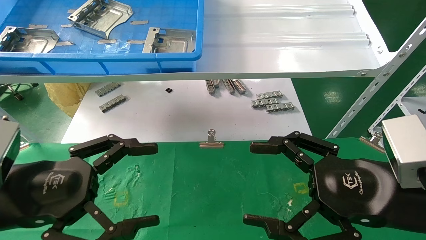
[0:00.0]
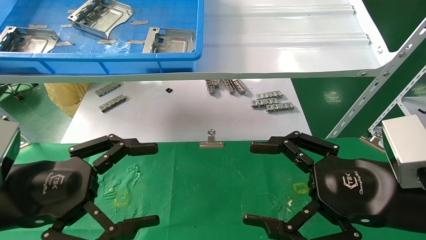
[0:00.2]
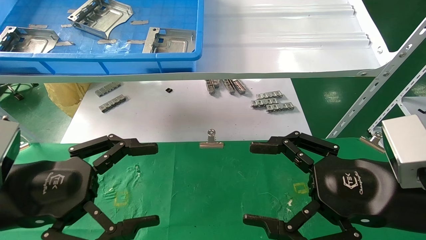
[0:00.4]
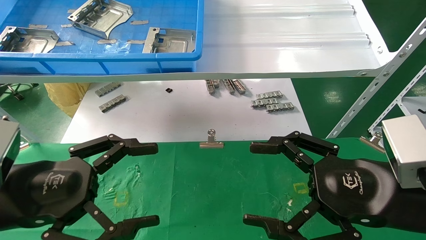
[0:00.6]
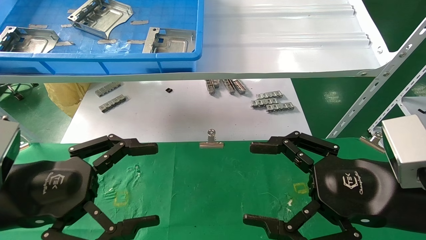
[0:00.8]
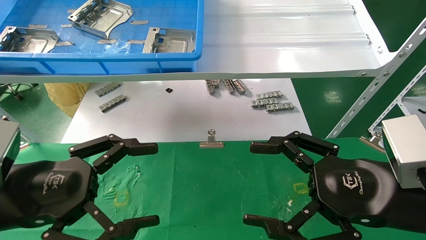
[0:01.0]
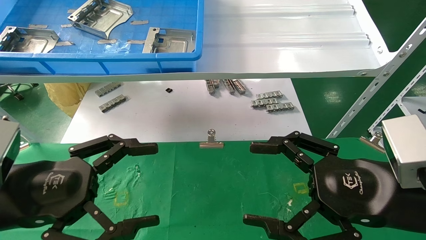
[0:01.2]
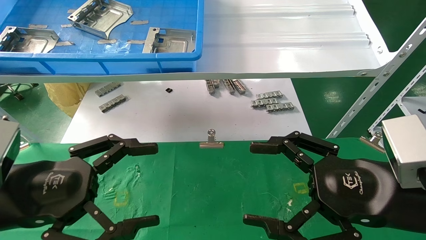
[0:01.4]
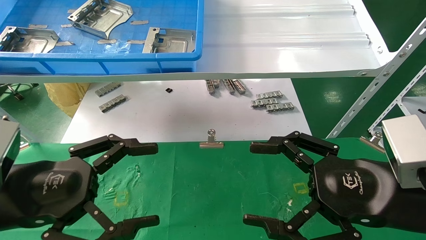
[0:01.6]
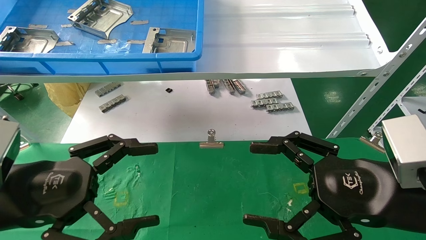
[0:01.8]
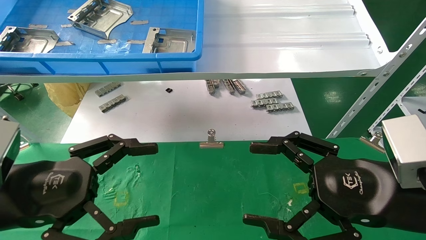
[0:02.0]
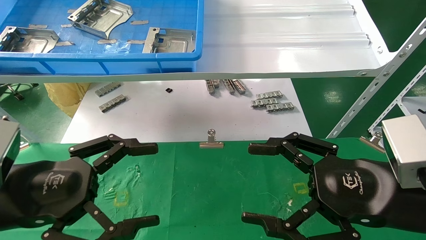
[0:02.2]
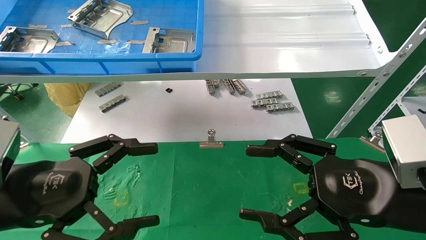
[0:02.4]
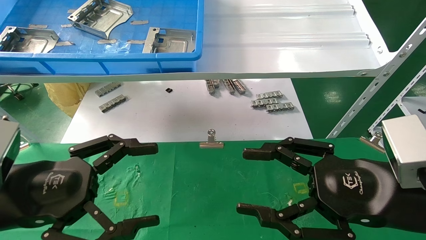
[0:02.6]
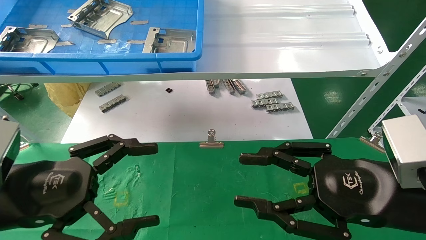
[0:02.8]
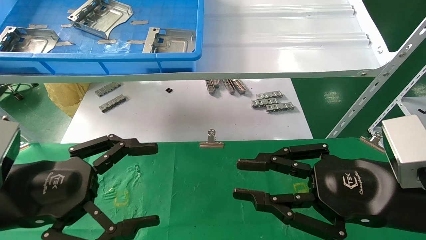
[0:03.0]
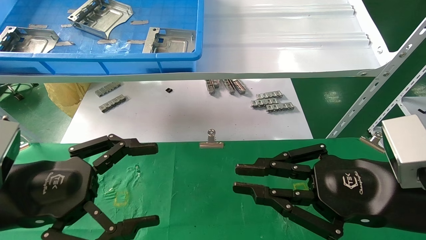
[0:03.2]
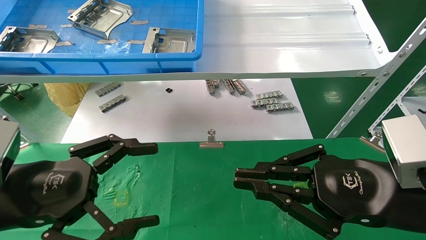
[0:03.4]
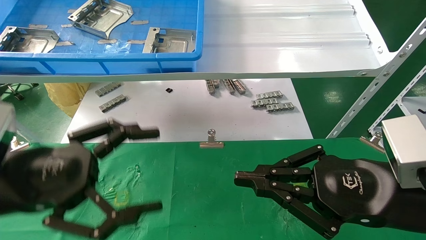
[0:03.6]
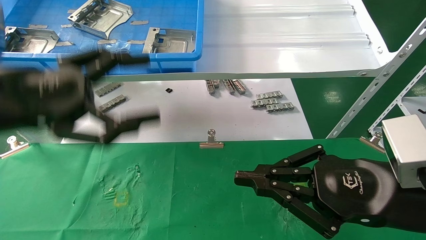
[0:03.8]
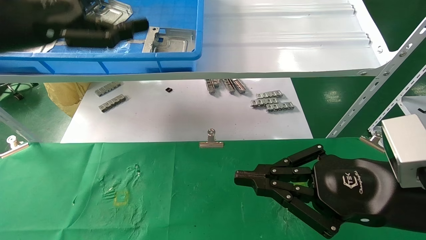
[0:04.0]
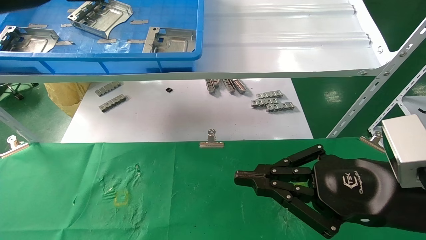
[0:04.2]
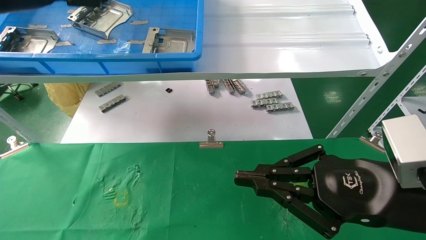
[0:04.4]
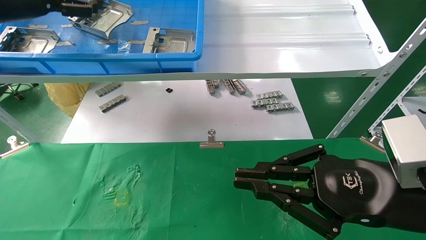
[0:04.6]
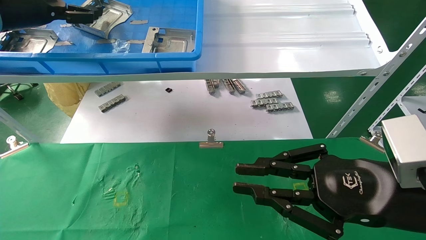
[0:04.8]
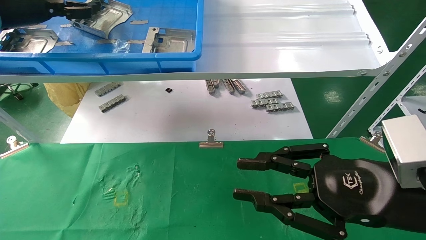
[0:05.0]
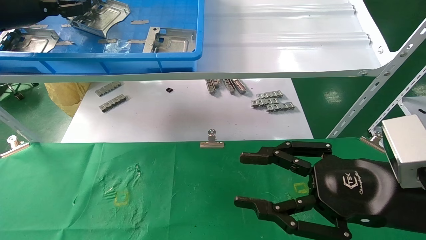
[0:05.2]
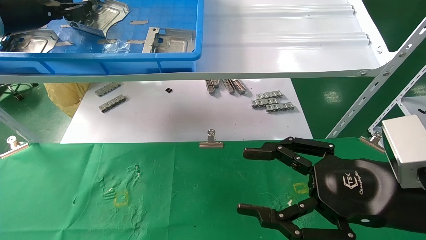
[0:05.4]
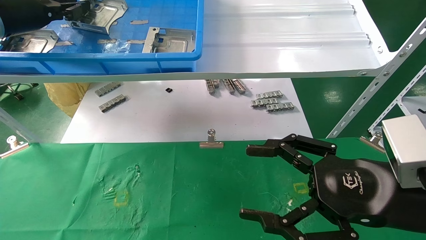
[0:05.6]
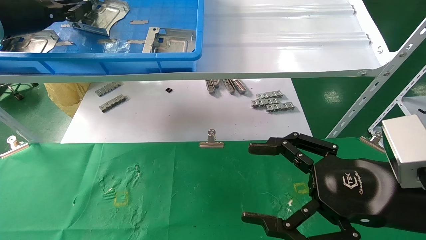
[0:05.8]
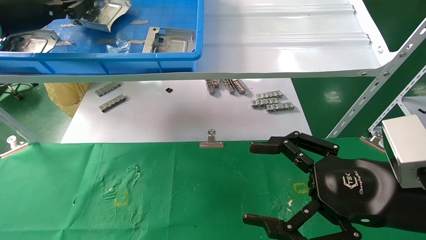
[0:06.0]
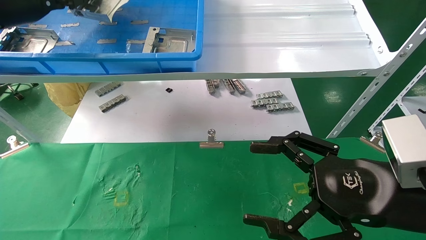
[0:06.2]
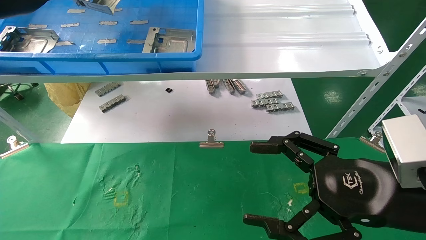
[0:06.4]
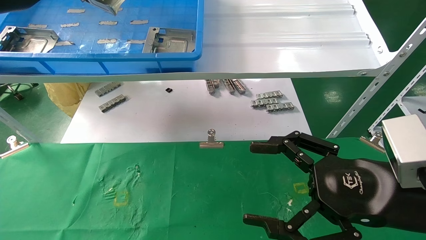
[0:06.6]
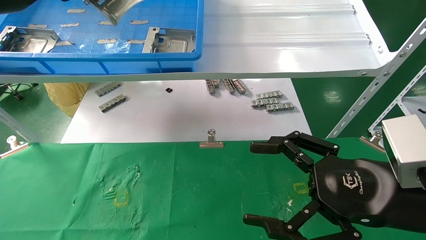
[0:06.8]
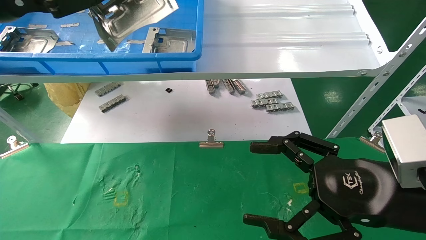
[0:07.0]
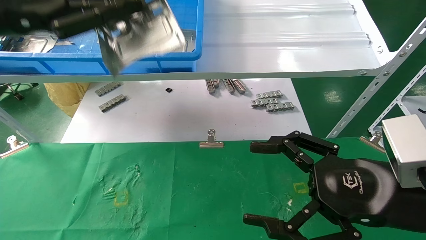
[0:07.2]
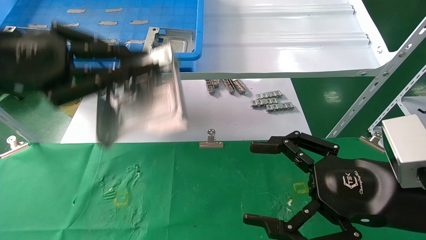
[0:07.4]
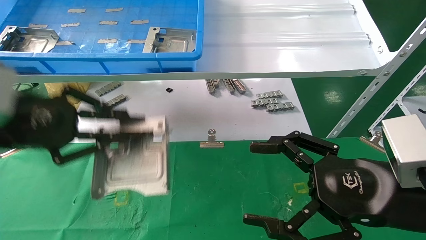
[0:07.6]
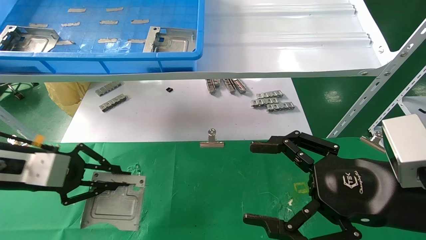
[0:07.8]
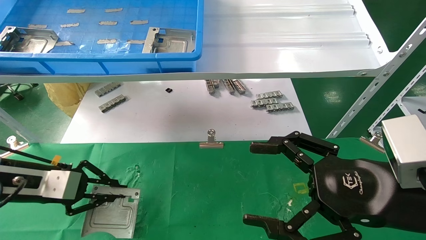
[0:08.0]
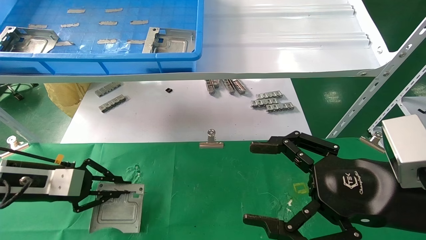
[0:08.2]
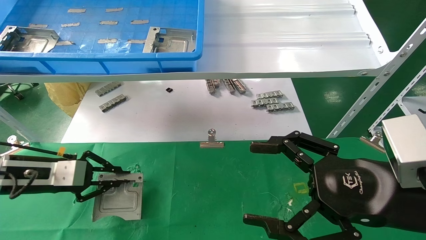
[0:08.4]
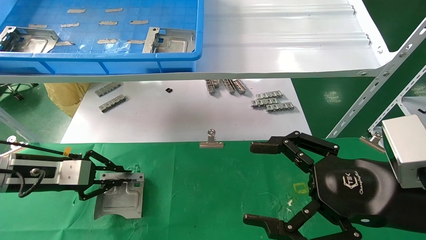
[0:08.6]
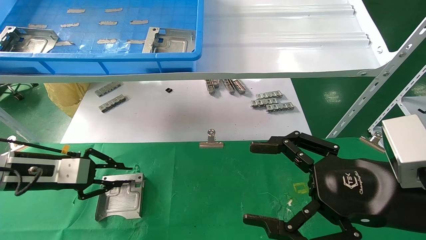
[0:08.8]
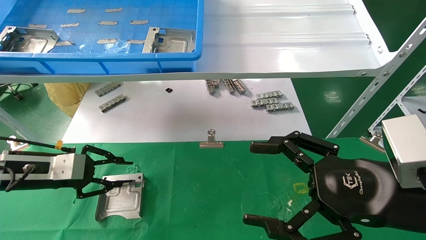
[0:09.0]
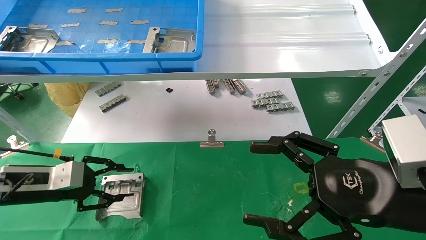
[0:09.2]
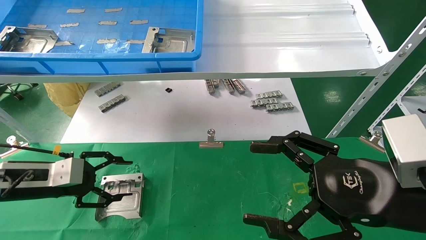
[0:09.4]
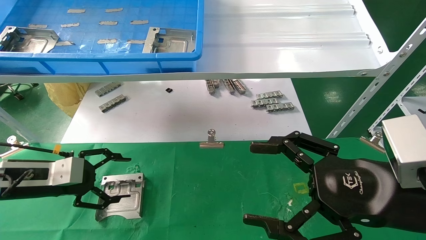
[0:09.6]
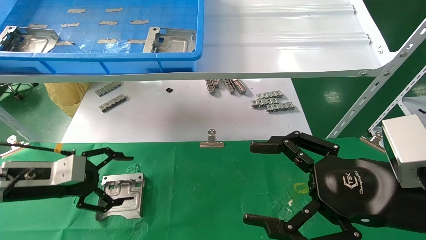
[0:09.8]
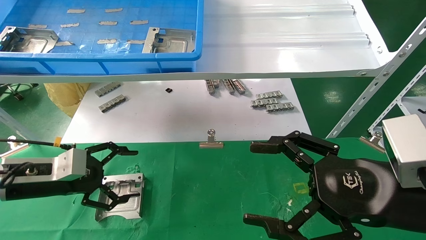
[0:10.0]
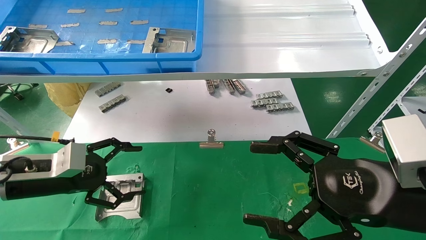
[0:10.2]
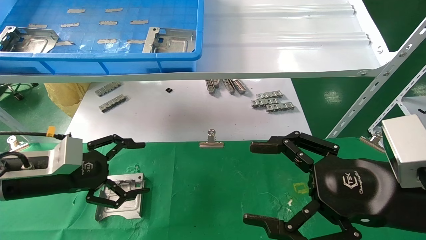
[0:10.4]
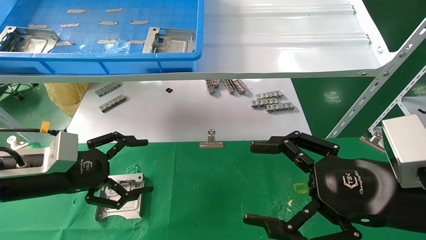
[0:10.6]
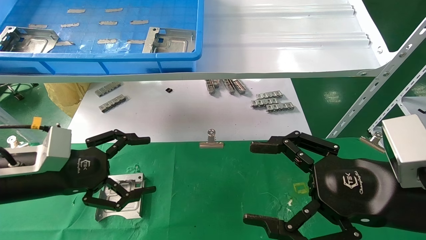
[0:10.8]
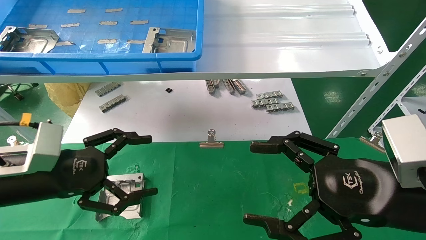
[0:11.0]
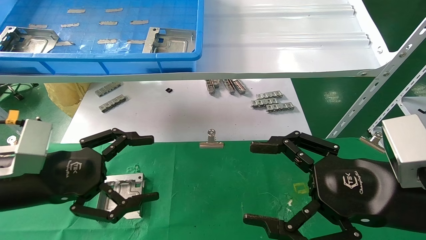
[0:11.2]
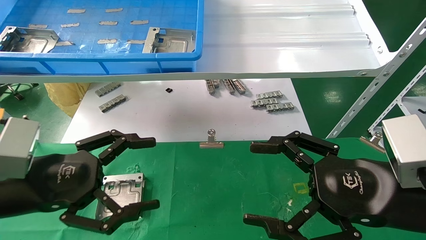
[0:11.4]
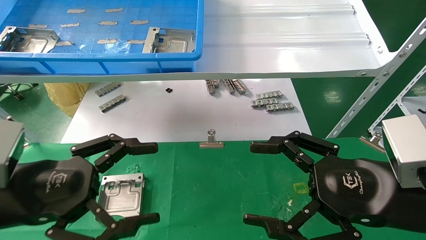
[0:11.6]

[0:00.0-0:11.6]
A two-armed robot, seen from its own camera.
Task of the whole recording: use the mechanical arm to pick up the parts and place them on the table.
Step, 0:03.8 to 0:05.8: Pick up the hard drive bracket from the feeding area.
Step, 0:06.0 to 0:08.8: Place the hard drive bracket into the box.
0:00.0 to 0:01.4: Both grippers stay about where they are.
0:01.4 to 0:02.8: The right gripper closes.
0:02.8 to 0:04.4: The left gripper heads upward and forward, covering some 30 cm. The right gripper closes up.
0:04.4 to 0:05.8: The left gripper shifts by about 5 cm, and closes its fingers. Meanwhile the right gripper opens.
0:05.8 to 0:07.2: The left gripper shifts some 15 cm backward.
0:07.2 to 0:08.8: The left gripper shifts about 25 cm downward.
0:08.8 to 0:10.2: The left gripper opens.
0:10.2 to 0:11.6: The left gripper shifts some 15 cm backward and to the right.

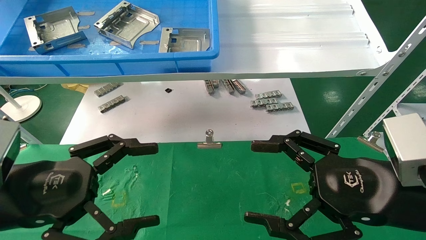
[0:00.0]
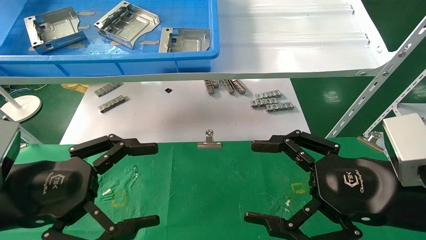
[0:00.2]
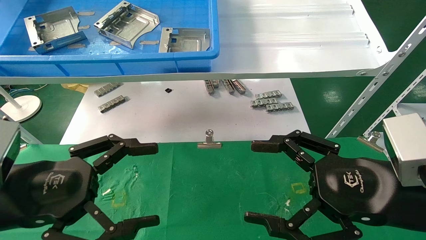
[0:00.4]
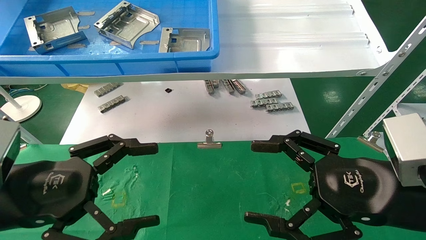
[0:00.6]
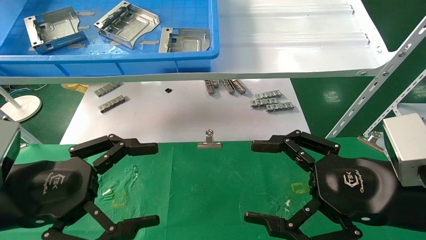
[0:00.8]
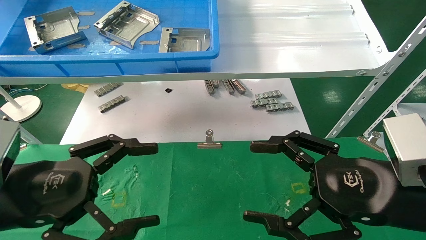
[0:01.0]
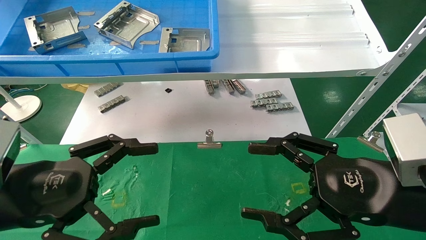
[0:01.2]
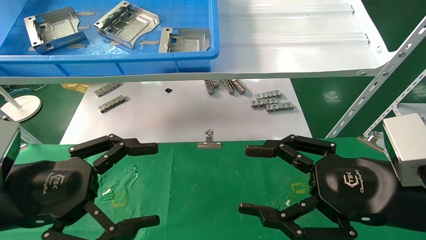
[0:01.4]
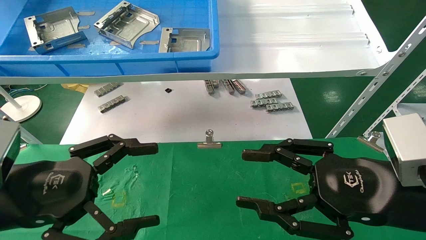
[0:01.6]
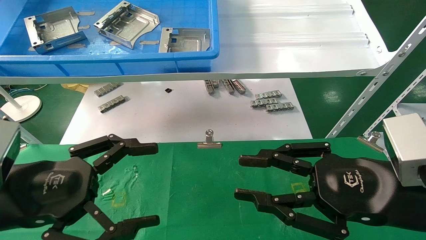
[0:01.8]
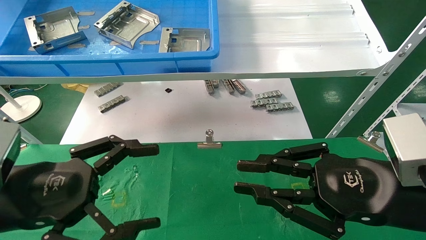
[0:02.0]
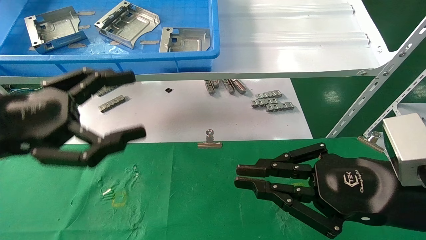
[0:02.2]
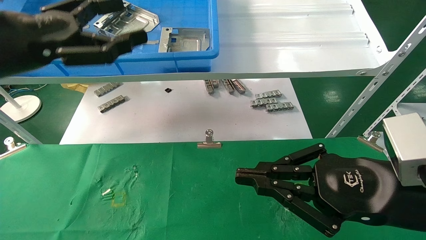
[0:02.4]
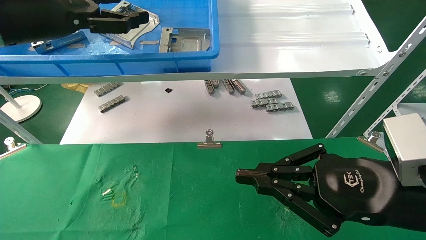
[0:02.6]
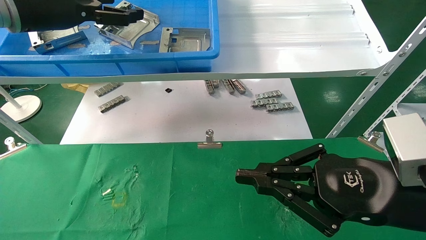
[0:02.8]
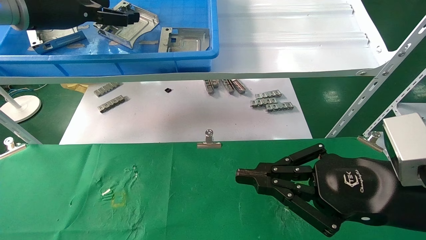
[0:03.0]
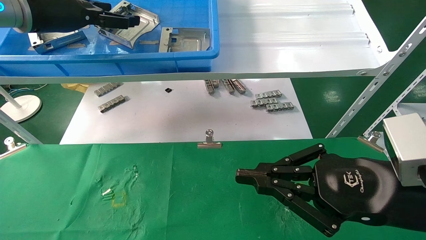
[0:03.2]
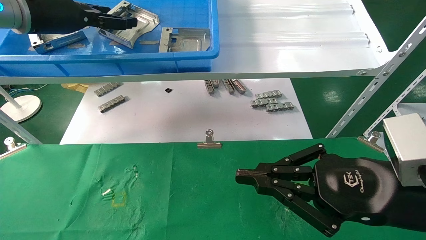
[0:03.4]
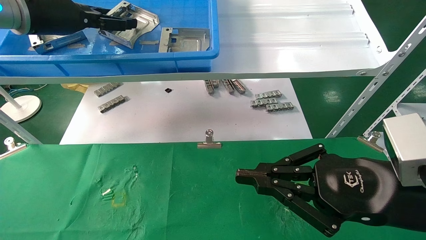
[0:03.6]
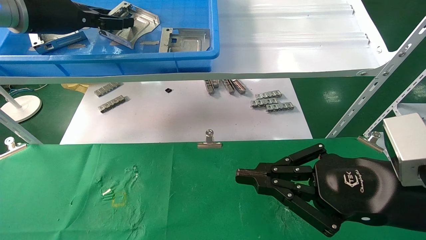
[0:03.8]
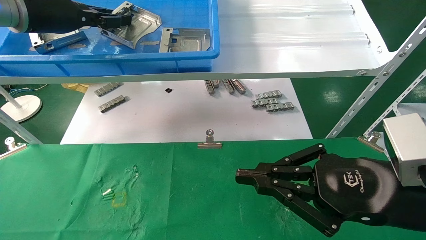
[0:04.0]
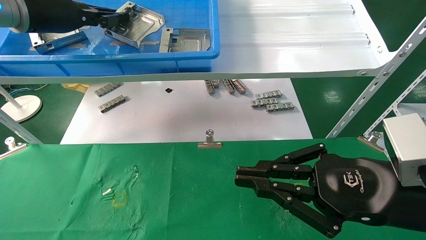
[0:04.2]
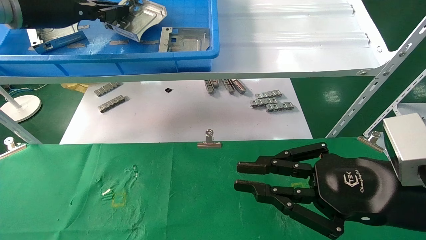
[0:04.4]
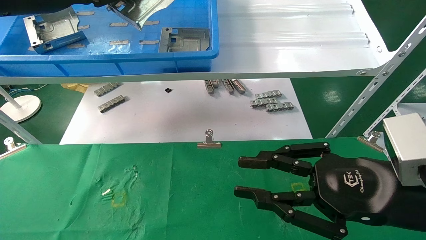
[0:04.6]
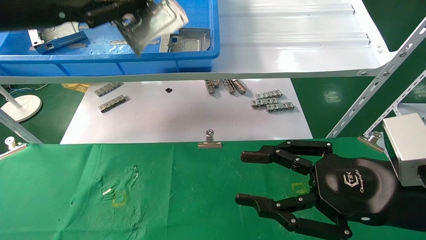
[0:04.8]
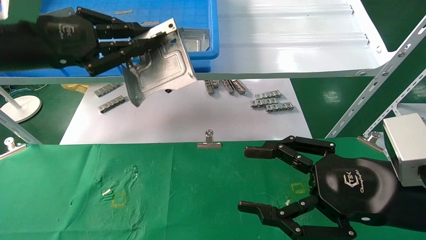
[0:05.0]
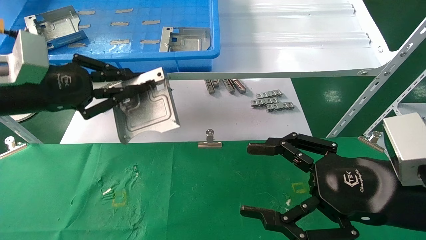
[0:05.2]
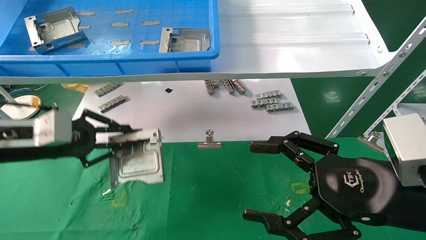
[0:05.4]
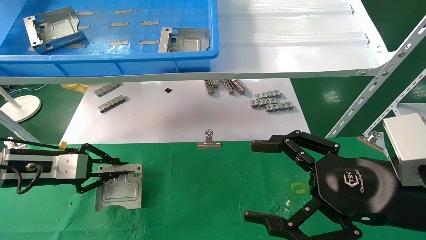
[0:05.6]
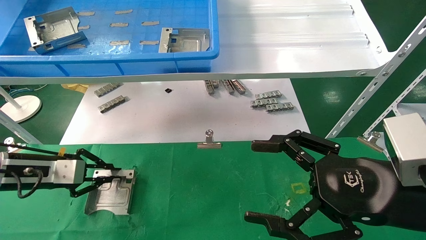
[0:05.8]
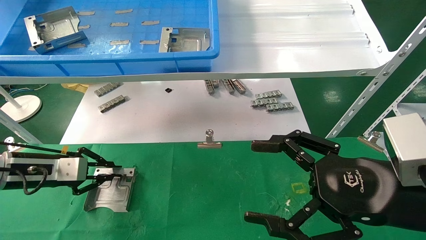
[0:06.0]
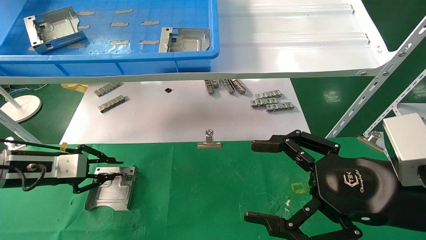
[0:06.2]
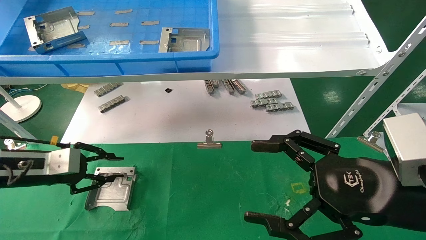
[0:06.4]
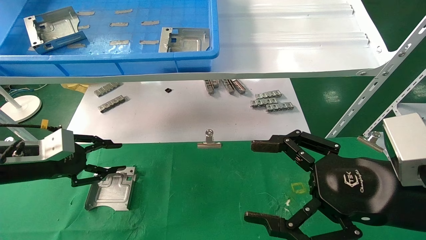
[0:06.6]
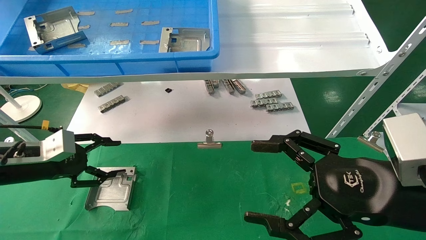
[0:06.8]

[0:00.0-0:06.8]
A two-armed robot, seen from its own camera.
Task of the whole recording: use the mechanical arm to pick up the parts and place them on the table.
Step, 0:02.4 to 0:04.4: Pick up the hard drive bracket from the feeding area.
Step, 0:04.6 to 0:06.2: Place the hard drive bracket into the box.
0:00.0 to 0:01.4: The two grippers keep their place.
0:01.4 to 0:02.8: The right gripper closes its fingers, while the left gripper shifts some 30 cm upward and forward.
0:02.8 to 0:04.0: The left gripper closes.
0:04.0 to 0:05.4: The left gripper goes approximately 20 cm downward, and closes, while the right gripper opens its fingers.
0:05.4 to 0:06.8: The left gripper moves downward, about 5 cm, and opens.
